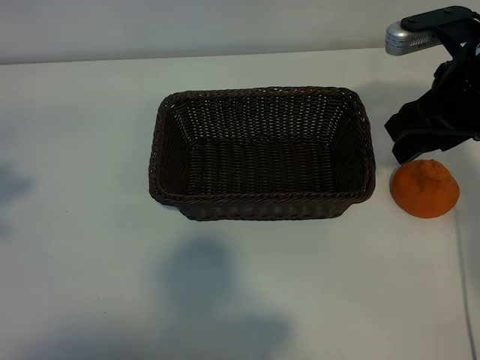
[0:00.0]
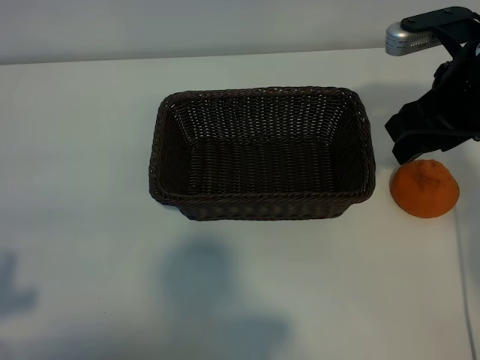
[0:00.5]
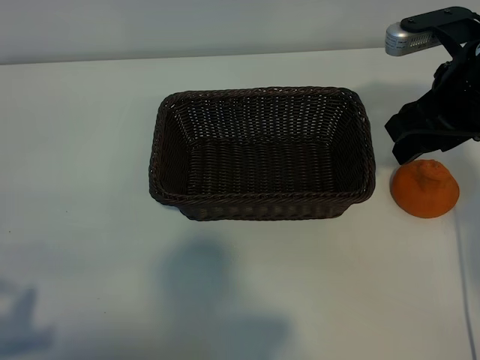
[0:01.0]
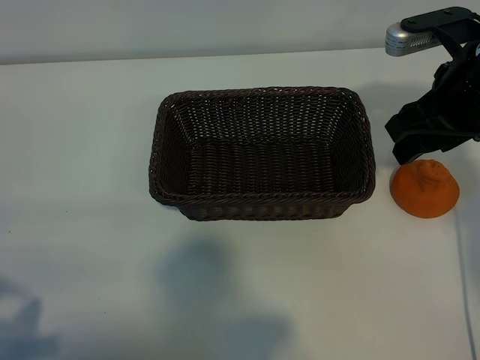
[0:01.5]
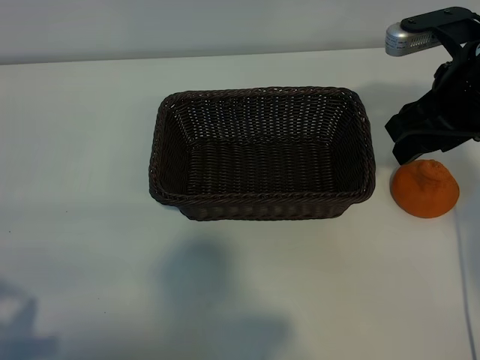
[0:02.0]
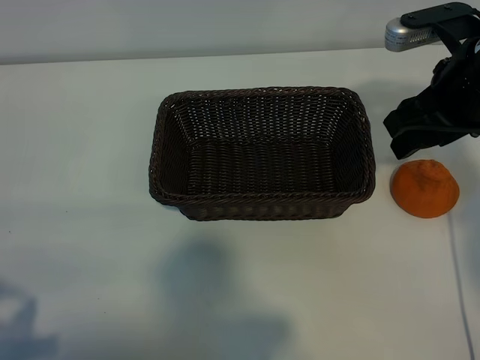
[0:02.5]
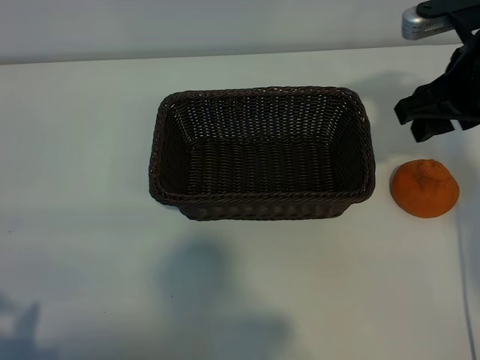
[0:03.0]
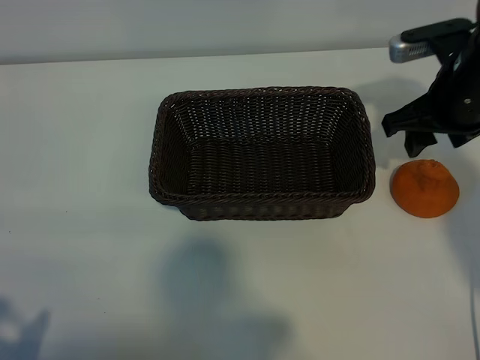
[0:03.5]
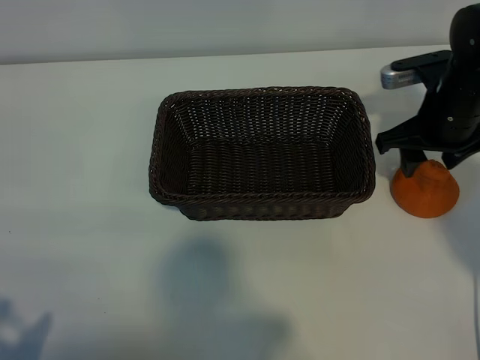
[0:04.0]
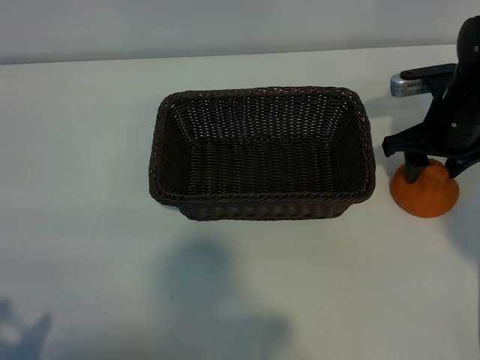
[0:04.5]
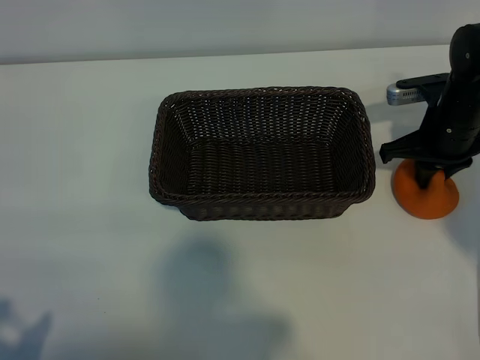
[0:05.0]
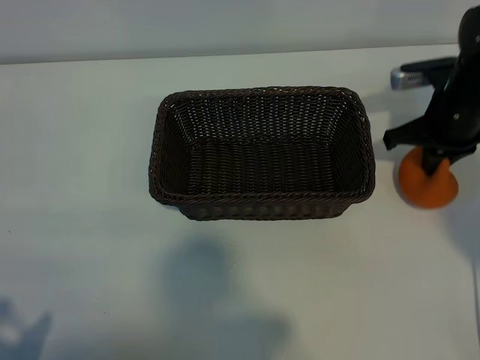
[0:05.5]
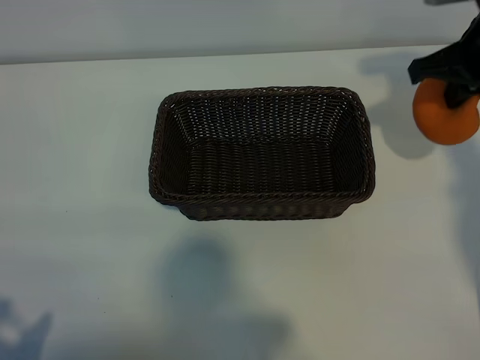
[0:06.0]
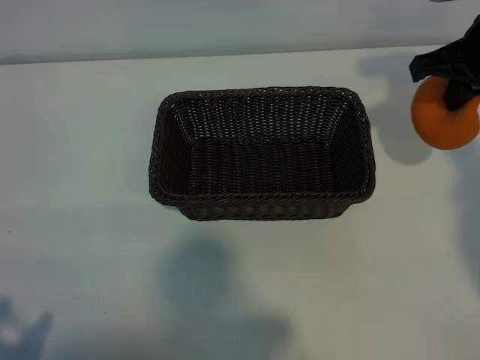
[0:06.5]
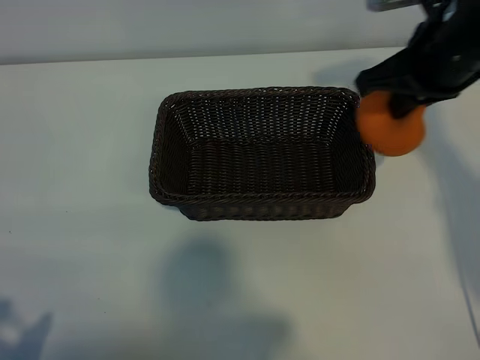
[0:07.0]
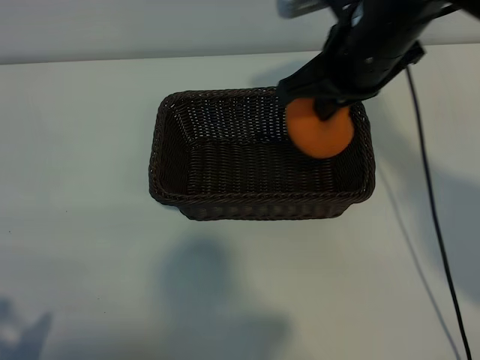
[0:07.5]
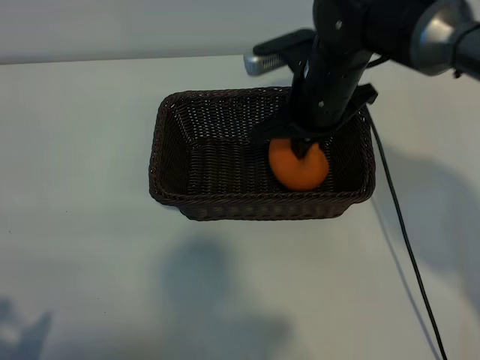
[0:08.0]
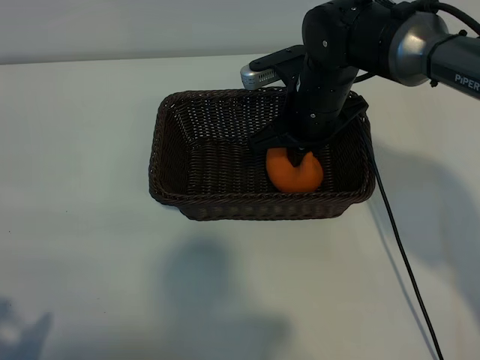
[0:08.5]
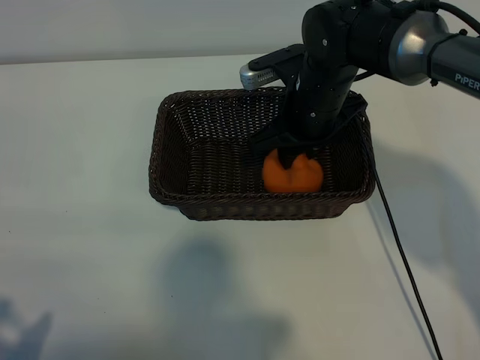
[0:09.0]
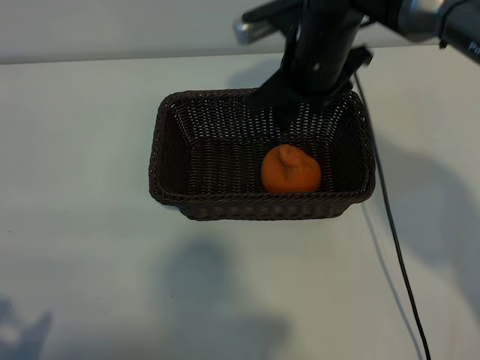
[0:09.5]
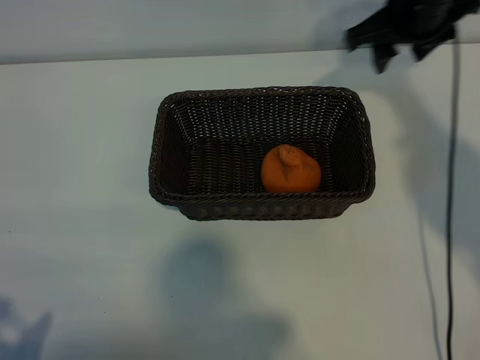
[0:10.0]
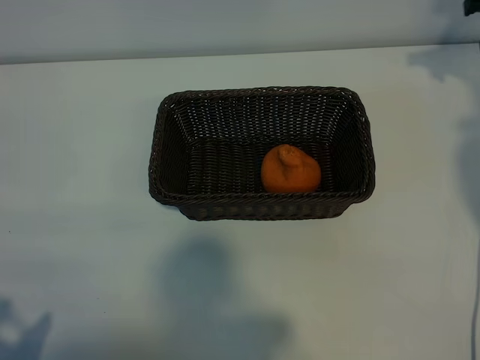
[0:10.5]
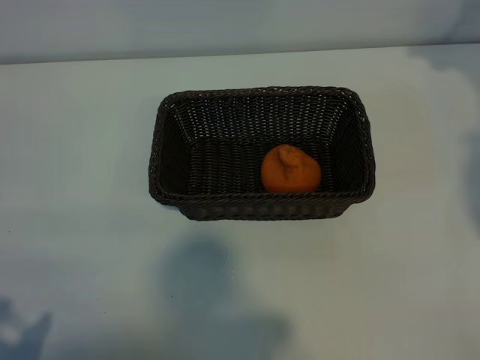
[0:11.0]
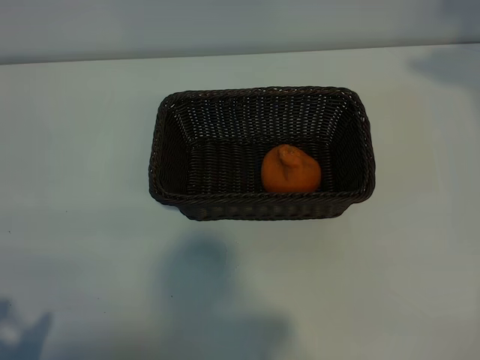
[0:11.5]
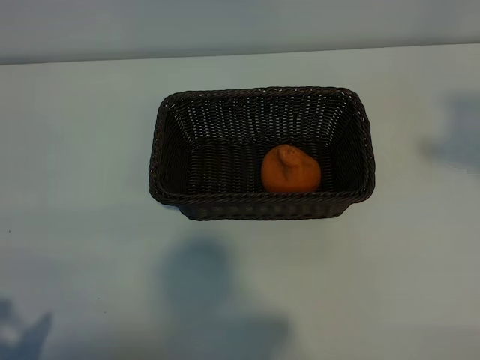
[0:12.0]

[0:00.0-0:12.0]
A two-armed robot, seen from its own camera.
Task of the whole recording: pick up the orange and put it into the basket.
Step, 0:00.0 to 0:05.0: Grasp the orange with right gripper.
Step, 0:05.5 to 0:09.0: Place the orange in the basket with right gripper.

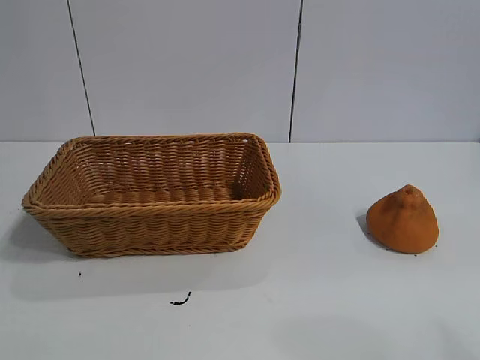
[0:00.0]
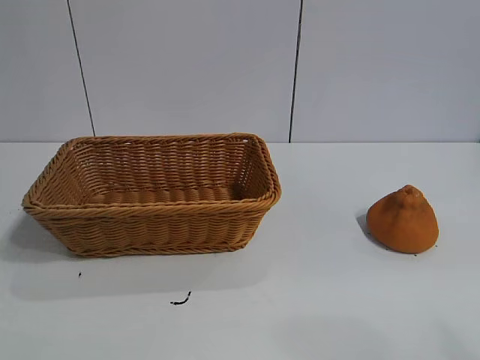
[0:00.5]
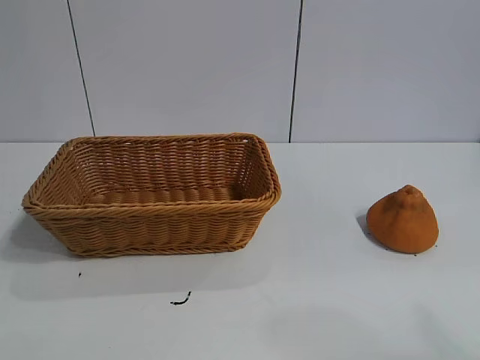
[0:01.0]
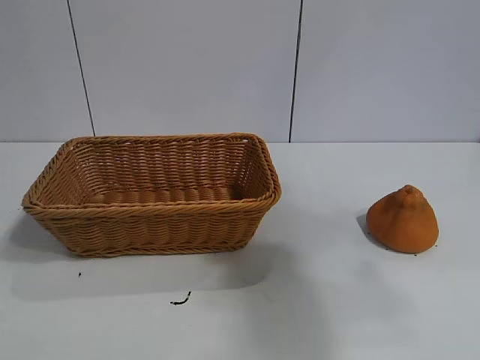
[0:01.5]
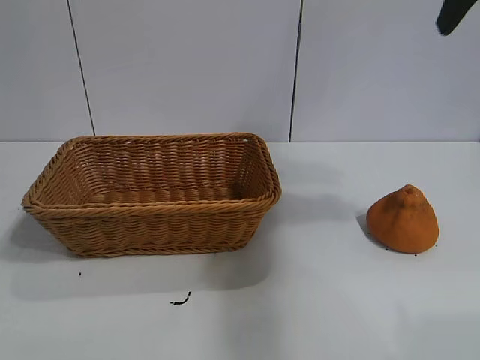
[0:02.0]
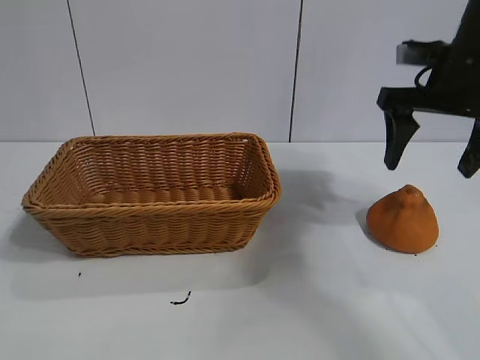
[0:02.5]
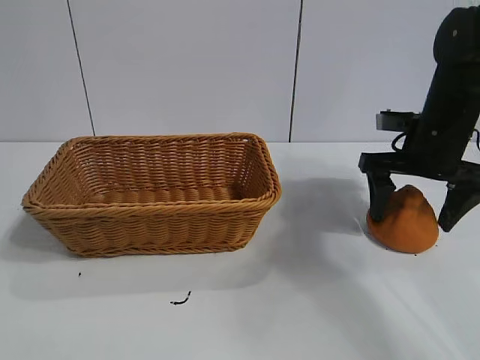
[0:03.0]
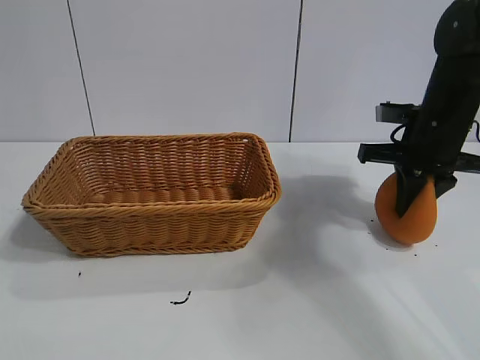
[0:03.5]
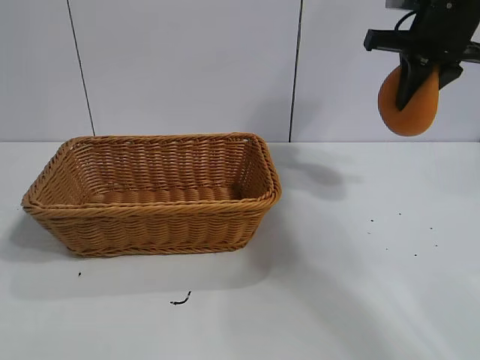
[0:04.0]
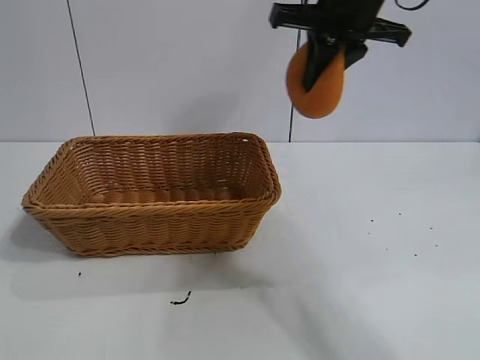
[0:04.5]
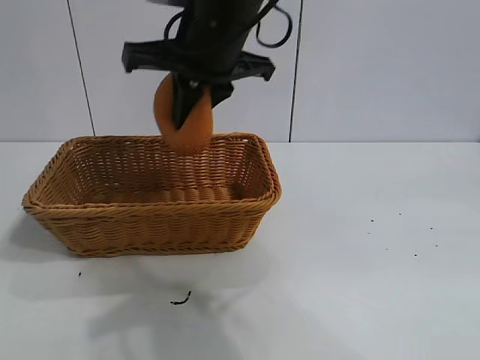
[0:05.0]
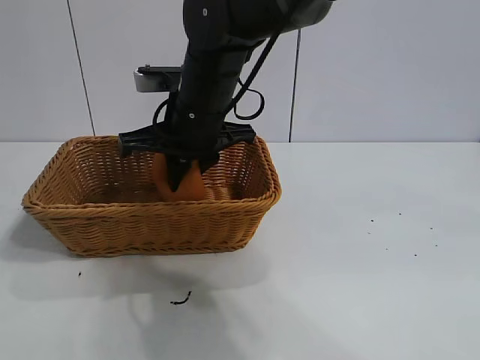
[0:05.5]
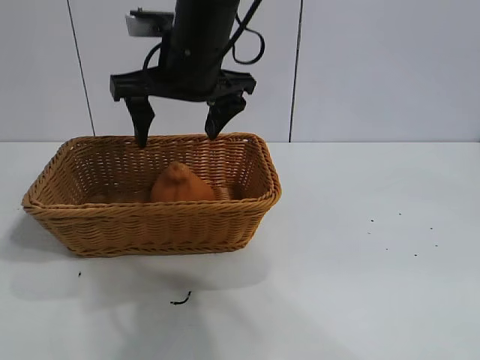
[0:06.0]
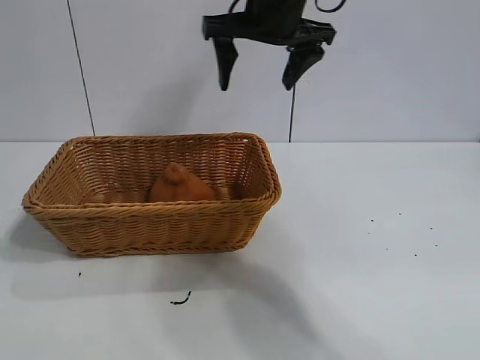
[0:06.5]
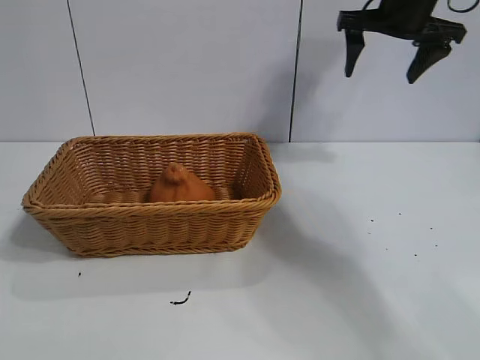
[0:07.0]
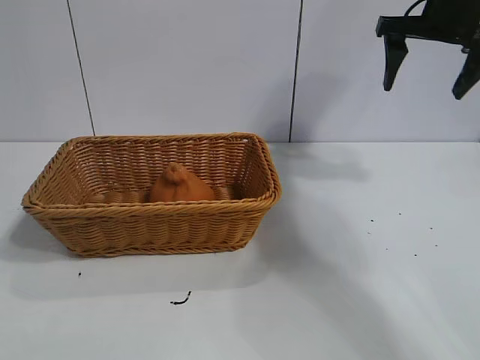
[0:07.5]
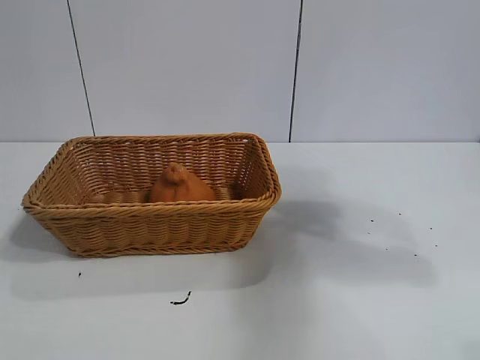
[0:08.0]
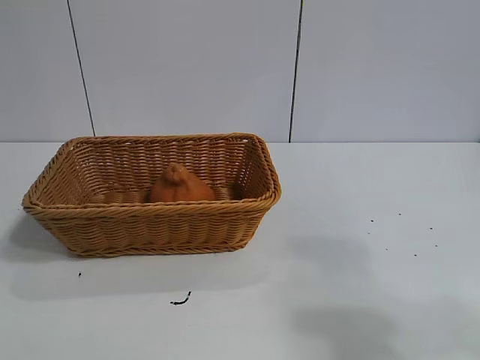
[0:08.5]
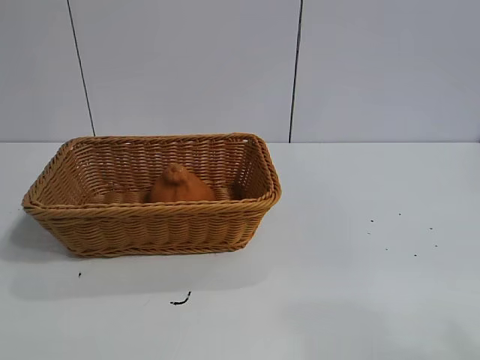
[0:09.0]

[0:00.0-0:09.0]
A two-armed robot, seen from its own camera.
Task of the whole recording: pick up the orange and put it into the basket.
Step, 0:01.0 to 0:03.0: Grasp the orange with right gripper.
Step, 0:03.5 to 0:05.5: Place the orange in the basket with right gripper.
